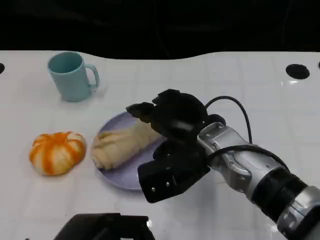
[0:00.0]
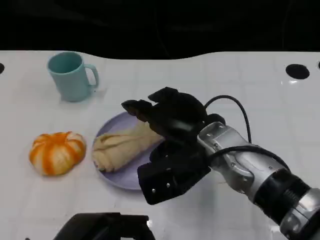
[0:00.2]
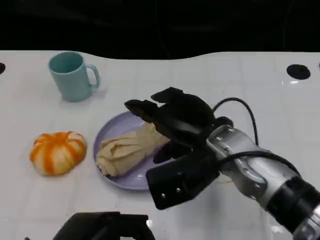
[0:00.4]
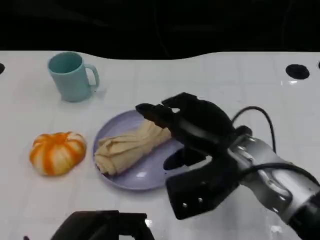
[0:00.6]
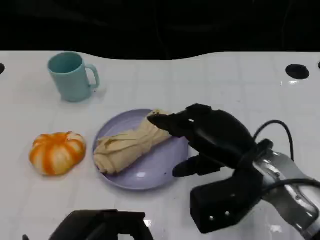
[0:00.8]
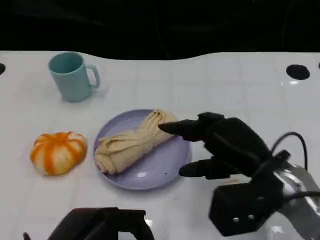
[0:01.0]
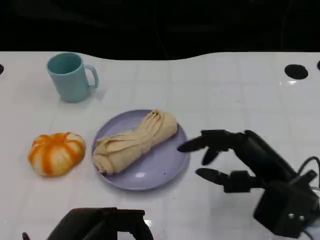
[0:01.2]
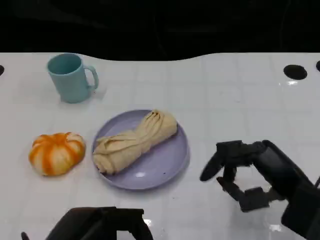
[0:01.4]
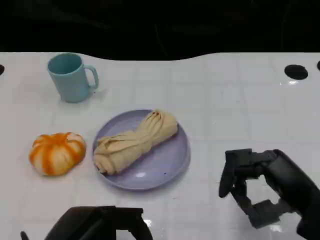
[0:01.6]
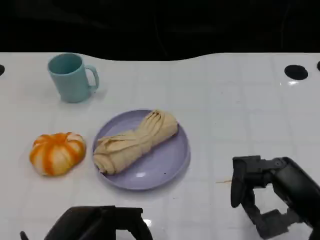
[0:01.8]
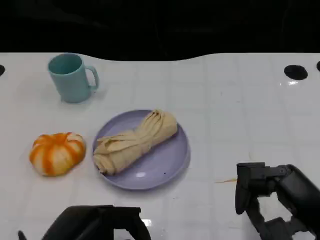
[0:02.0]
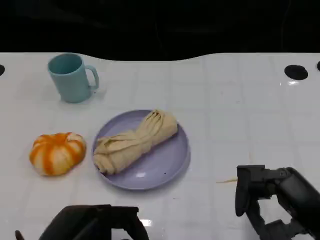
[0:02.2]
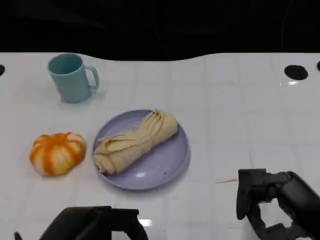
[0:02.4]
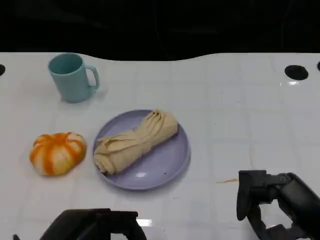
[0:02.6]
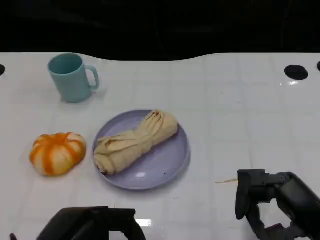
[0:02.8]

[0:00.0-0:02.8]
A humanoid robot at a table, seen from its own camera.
Task of the whole recording: Grasp the towel on the left side of the plate with the left hand and place it into the plate.
0:00.0 to 0:01.4: The right hand moves to the right and backward, roughly 15 cm.
0:01.4 to 0:02.8: The hands make only small movements.
